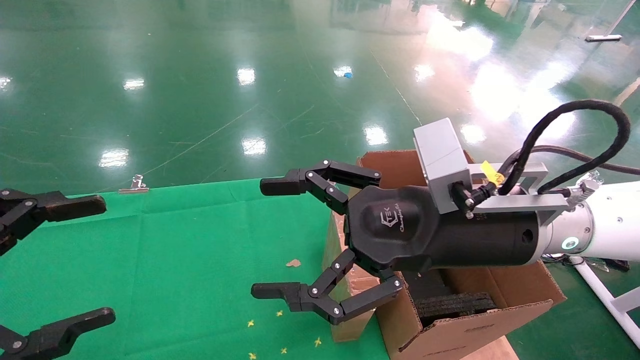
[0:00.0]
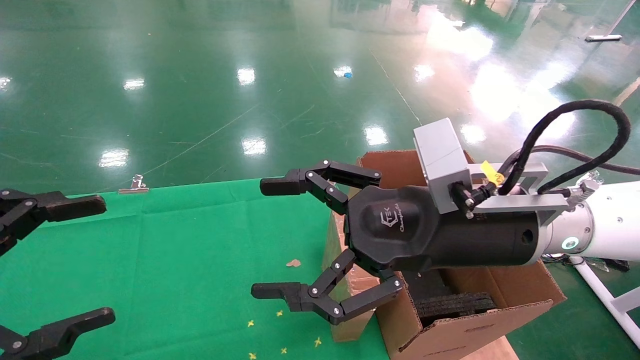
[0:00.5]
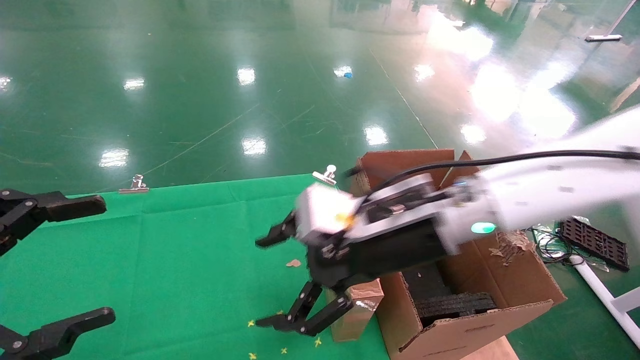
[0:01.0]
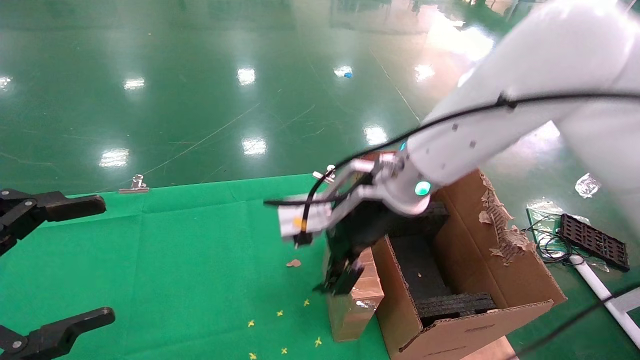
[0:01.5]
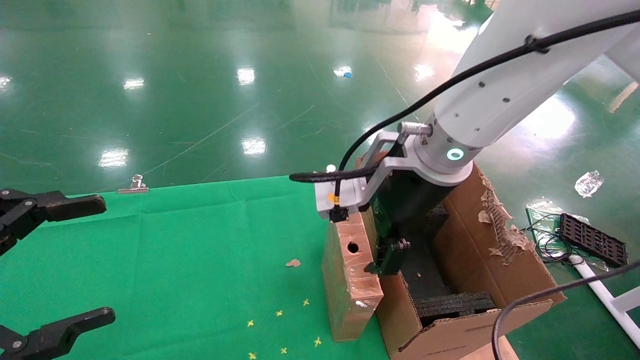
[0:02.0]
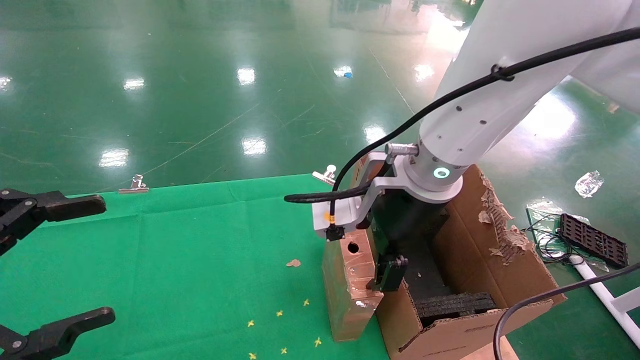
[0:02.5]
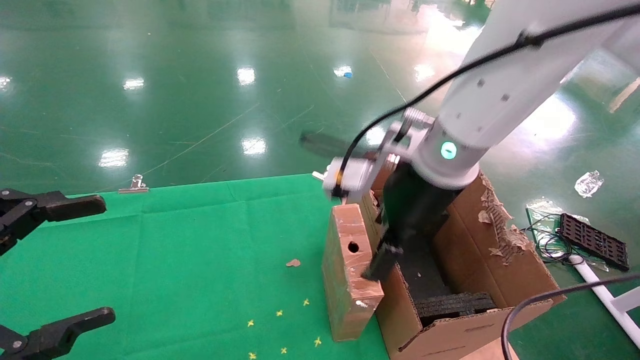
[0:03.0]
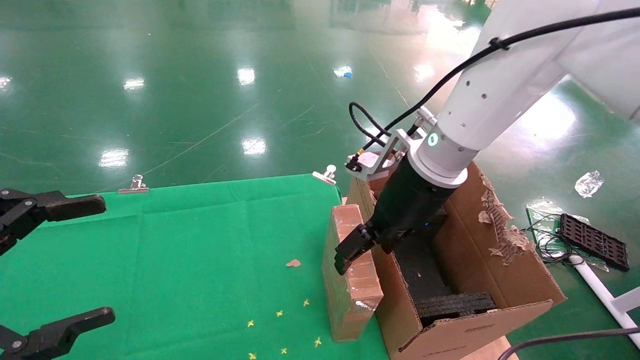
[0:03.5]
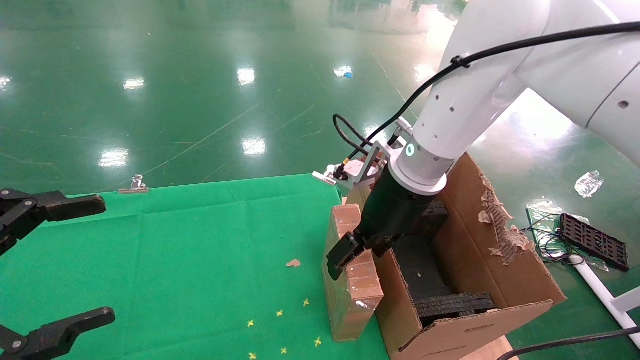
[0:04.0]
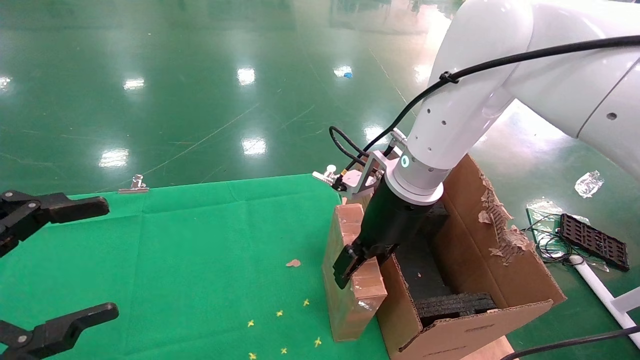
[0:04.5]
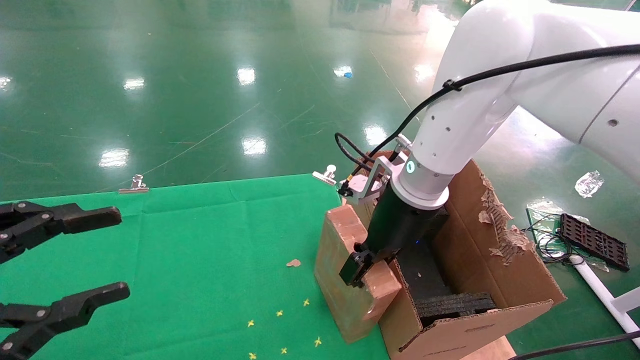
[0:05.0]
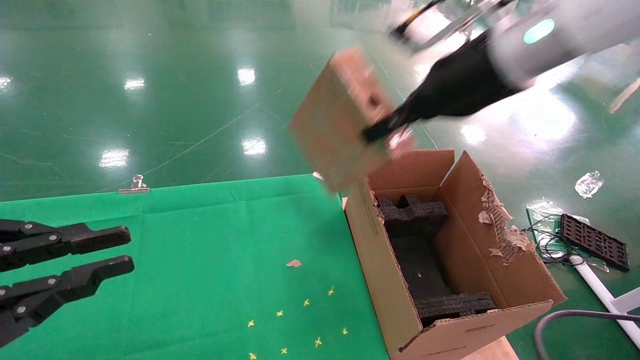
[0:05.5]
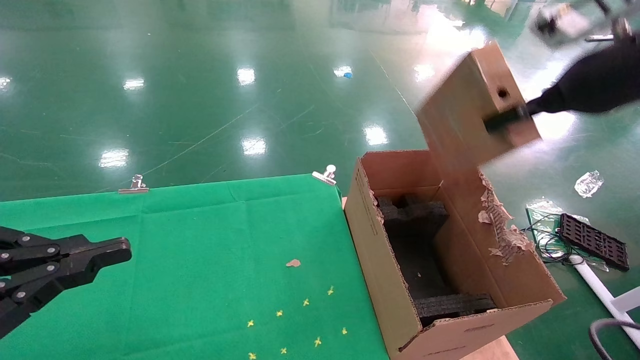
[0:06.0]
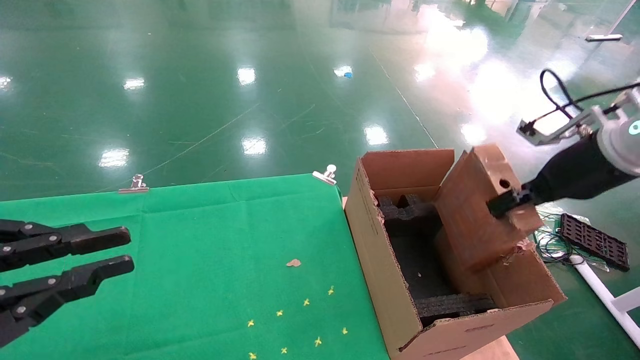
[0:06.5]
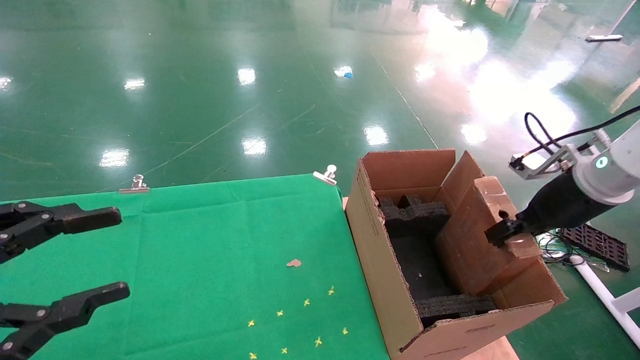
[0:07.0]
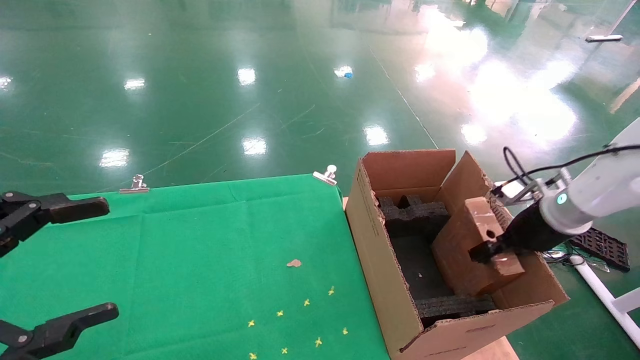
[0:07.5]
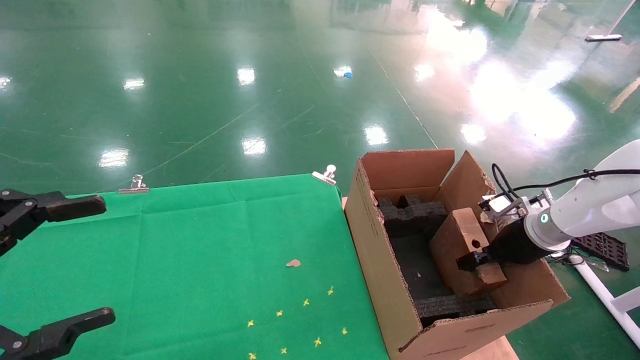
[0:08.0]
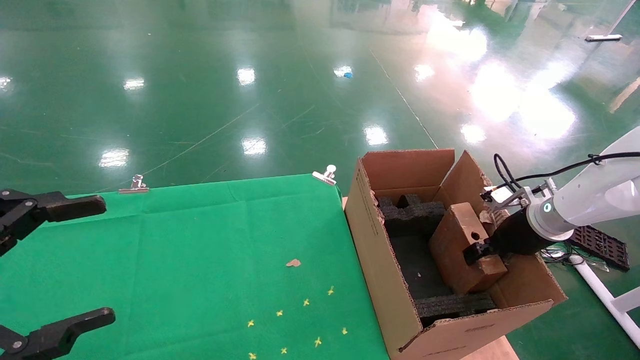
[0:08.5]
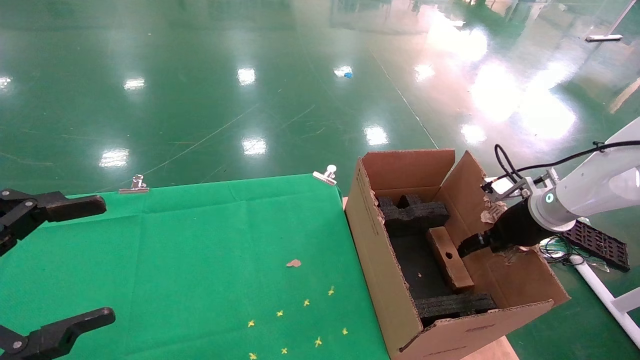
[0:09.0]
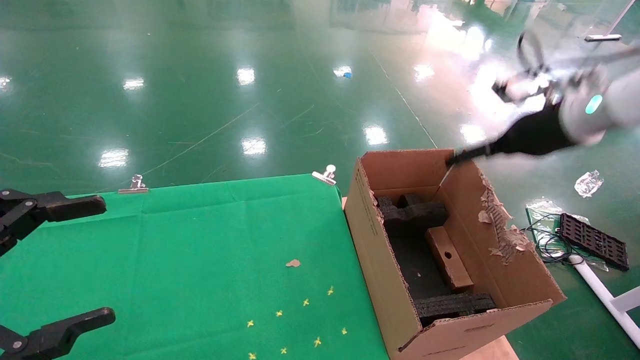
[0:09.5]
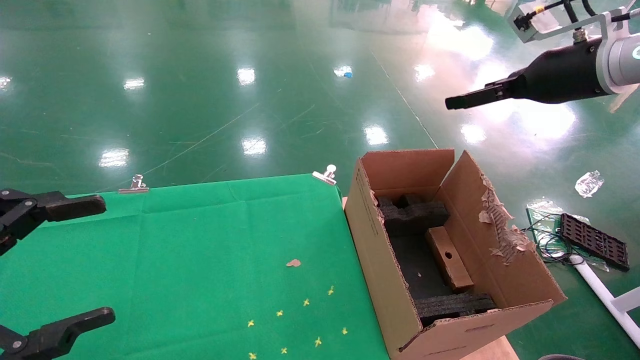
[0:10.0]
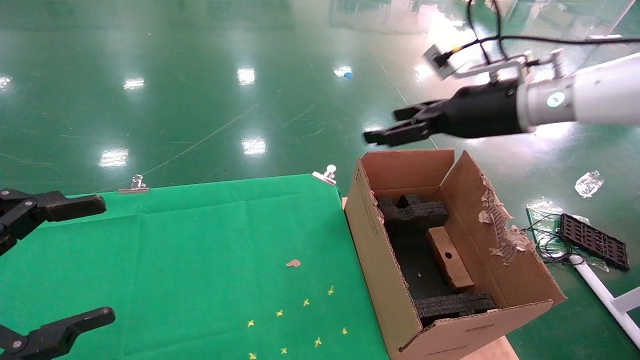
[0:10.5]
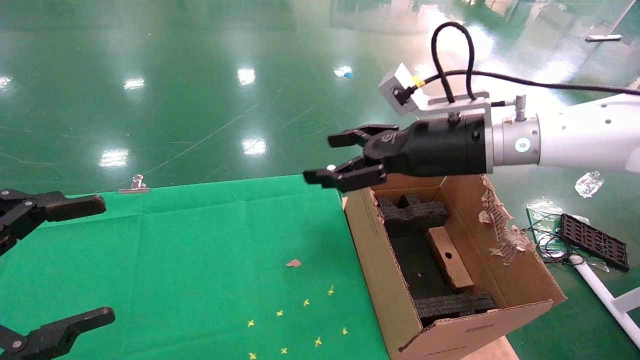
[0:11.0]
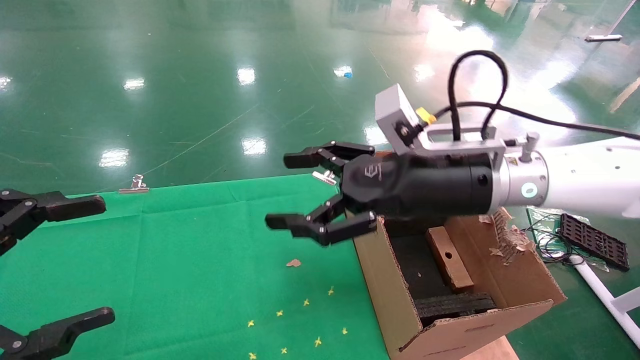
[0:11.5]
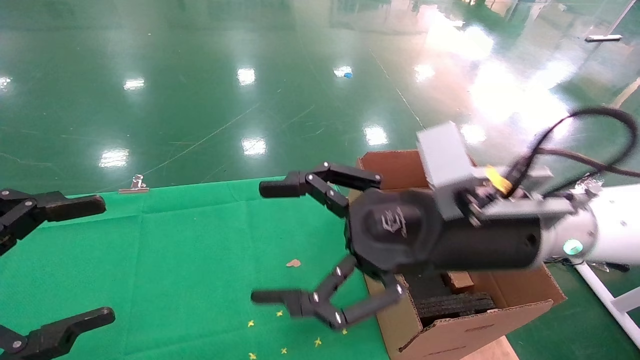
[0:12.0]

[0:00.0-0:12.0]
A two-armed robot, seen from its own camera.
Task of the whole recording: using a robotic arm to pick up a cardboard box and palace it the carton.
Step, 0:01.0 to 0:04.5: Pick up the mouse and the power cord paper box.
Step, 0:05.0 to 0:09.5: Place the mouse and the power cord paper box into the container.
0:00.0 to 0:02.0: The right gripper travels forward and to the left by approximately 10 cm.
0:02.0 to 0:04.0: The right gripper is displaced forward by approximately 5 cm.
0:04.0 to 0:06.0: The left gripper closes its fingers. The right gripper is displaced to the right and upward by roughly 25 cm, and closes its fingers.
0:06.0 to 0:08.0: The right gripper goes approximately 25 cm downward; the left gripper opens its fingers.
0:08.0 to 0:10.0: The right gripper heads upward, covering about 25 cm, and opens up.
0:10.0 to 0:12.0: The right gripper heads to the left, downward and backward, covering some 25 cm.

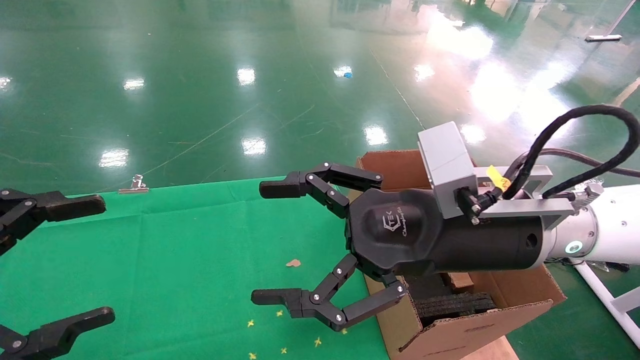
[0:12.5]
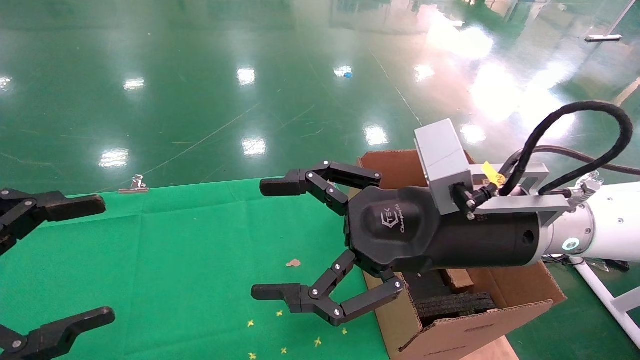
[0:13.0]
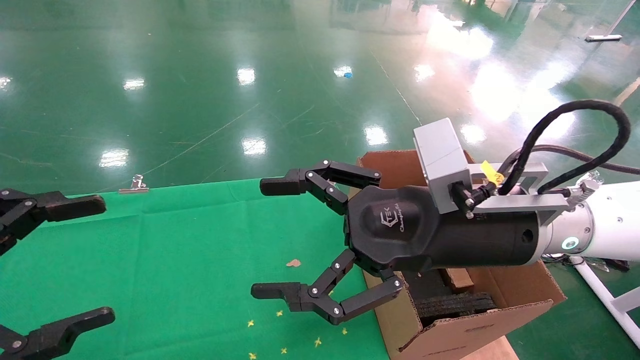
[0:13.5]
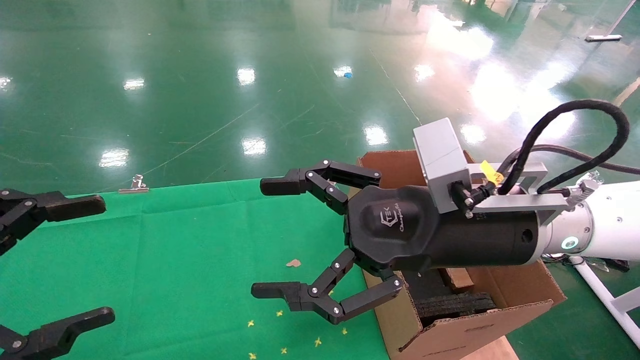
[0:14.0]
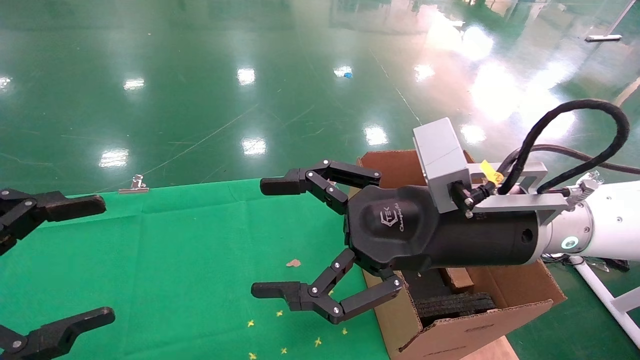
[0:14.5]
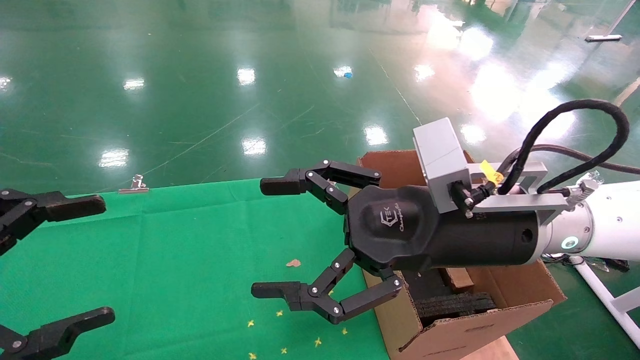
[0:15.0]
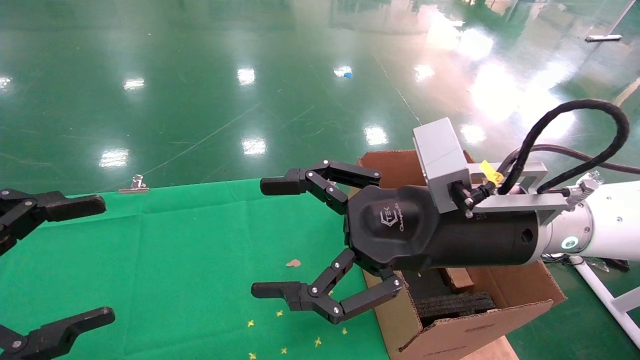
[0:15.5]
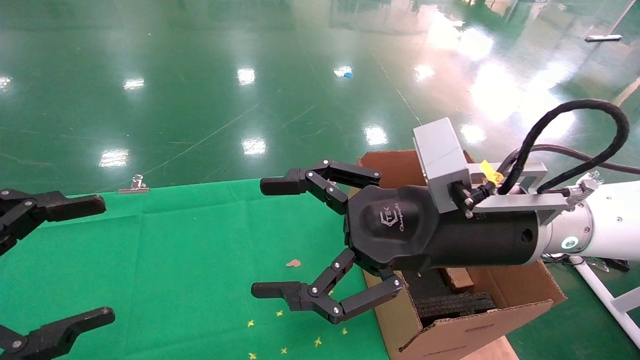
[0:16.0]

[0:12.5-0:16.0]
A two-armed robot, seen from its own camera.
Task of the whole recording: using a robotic arm to pick up a cardboard box and palace it the carton.
0:12.5 to 0:16.0: The two grippers keep their place.
